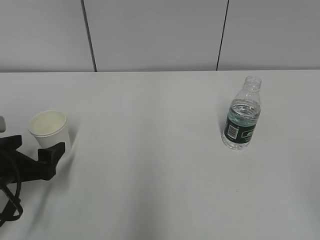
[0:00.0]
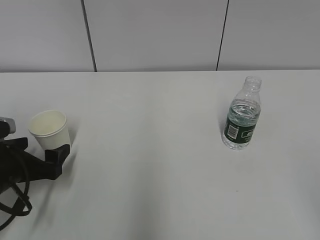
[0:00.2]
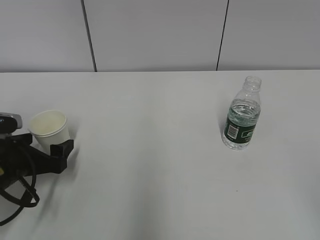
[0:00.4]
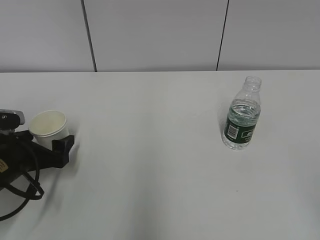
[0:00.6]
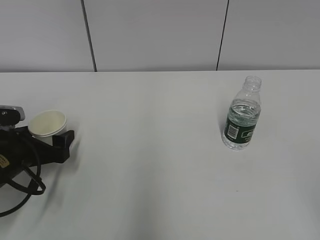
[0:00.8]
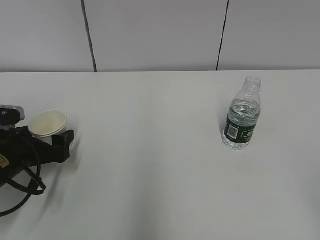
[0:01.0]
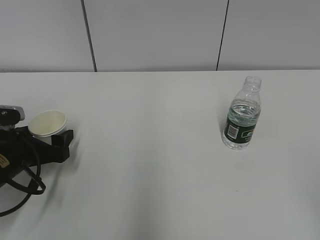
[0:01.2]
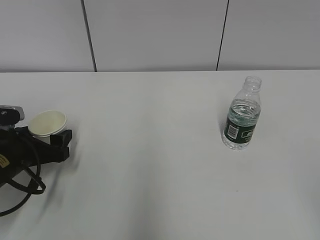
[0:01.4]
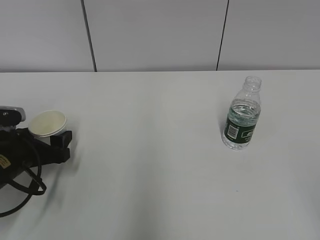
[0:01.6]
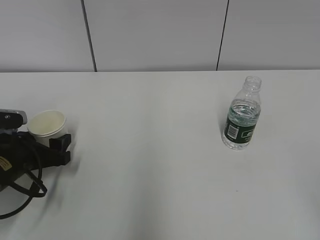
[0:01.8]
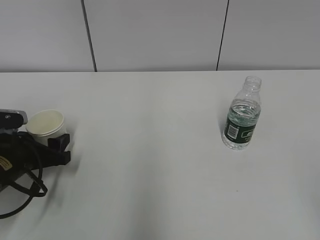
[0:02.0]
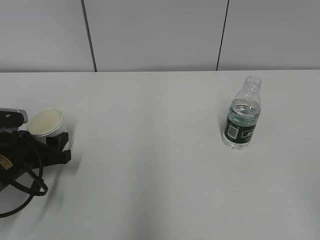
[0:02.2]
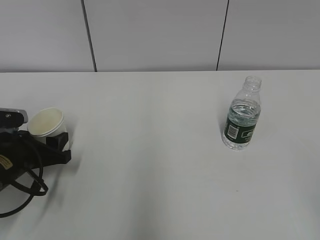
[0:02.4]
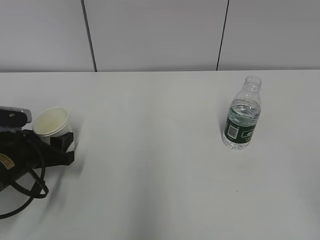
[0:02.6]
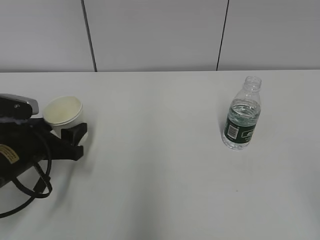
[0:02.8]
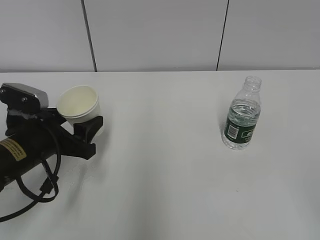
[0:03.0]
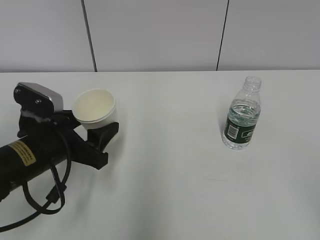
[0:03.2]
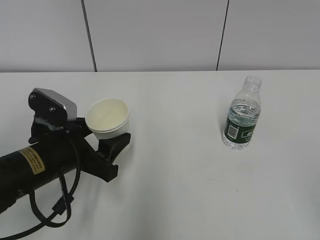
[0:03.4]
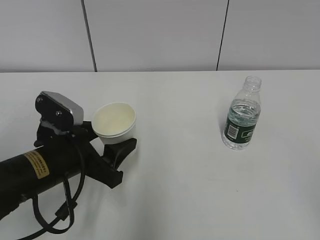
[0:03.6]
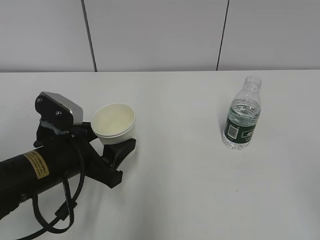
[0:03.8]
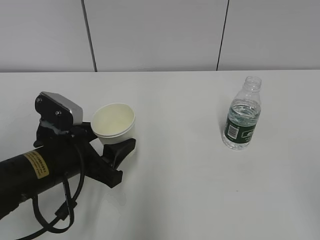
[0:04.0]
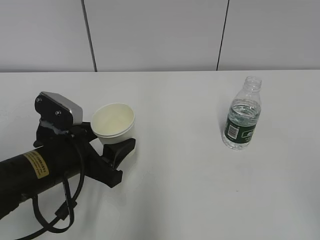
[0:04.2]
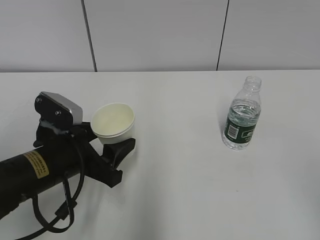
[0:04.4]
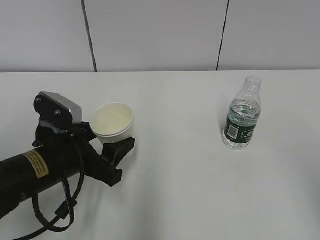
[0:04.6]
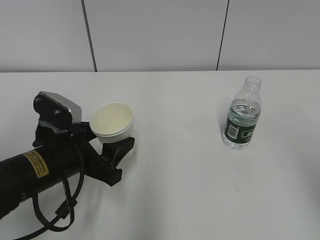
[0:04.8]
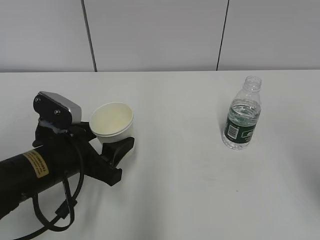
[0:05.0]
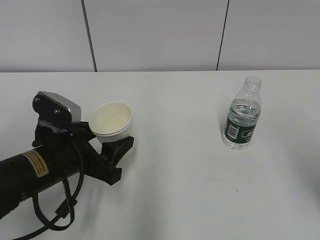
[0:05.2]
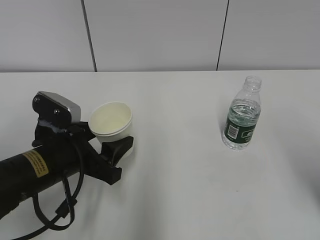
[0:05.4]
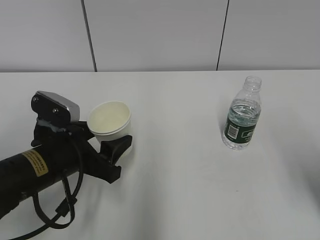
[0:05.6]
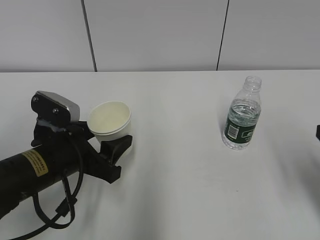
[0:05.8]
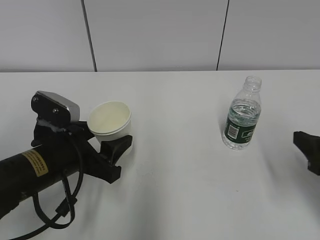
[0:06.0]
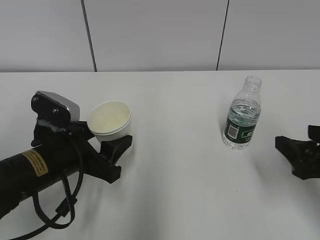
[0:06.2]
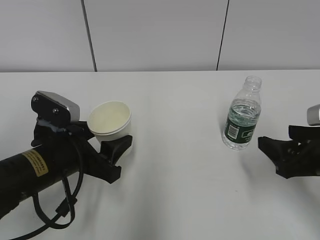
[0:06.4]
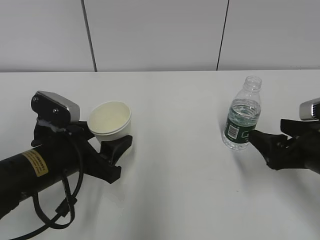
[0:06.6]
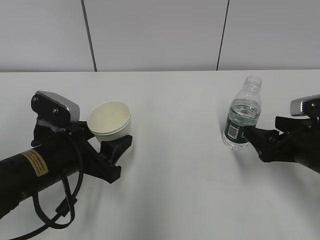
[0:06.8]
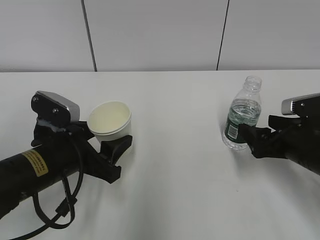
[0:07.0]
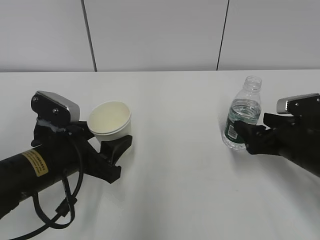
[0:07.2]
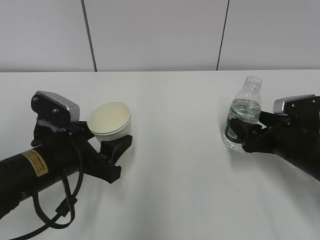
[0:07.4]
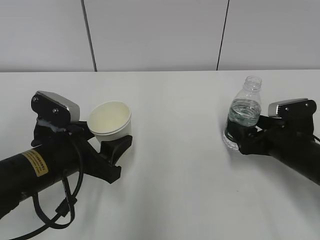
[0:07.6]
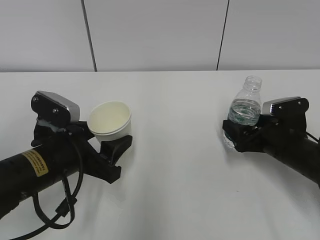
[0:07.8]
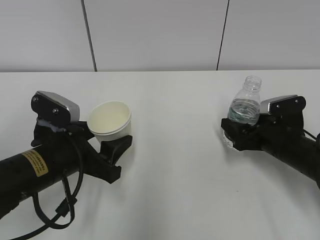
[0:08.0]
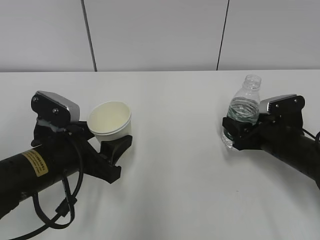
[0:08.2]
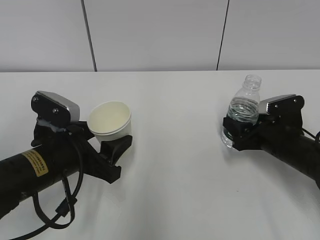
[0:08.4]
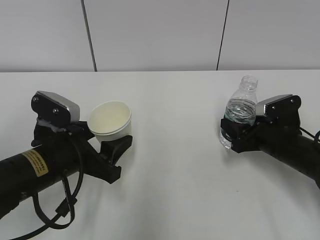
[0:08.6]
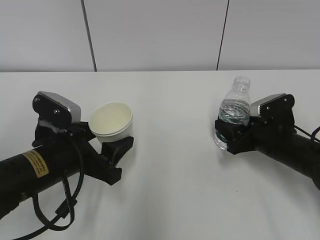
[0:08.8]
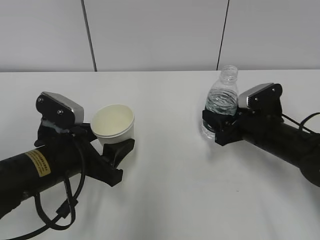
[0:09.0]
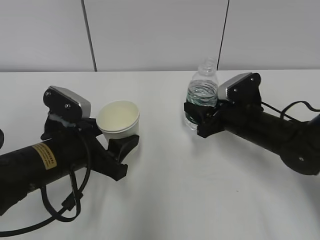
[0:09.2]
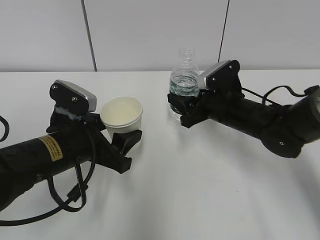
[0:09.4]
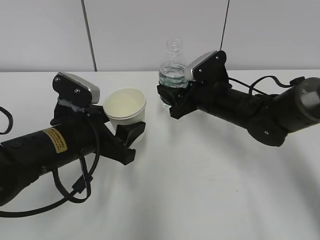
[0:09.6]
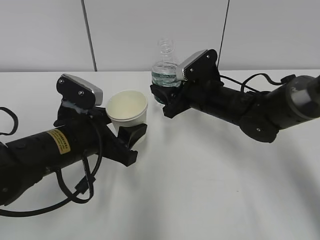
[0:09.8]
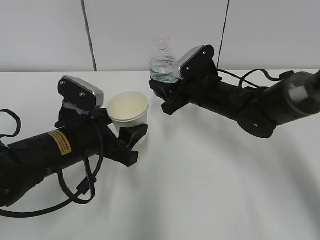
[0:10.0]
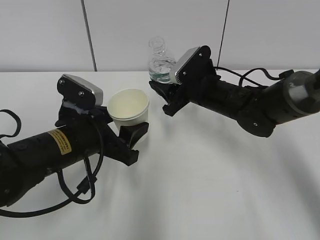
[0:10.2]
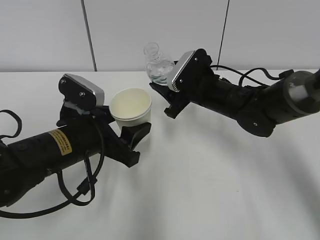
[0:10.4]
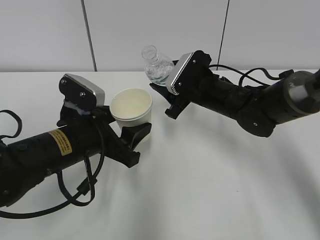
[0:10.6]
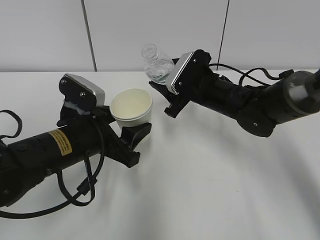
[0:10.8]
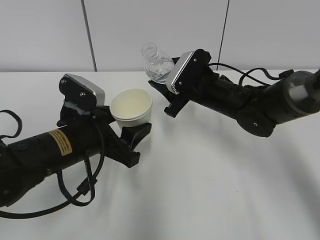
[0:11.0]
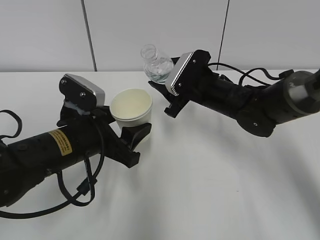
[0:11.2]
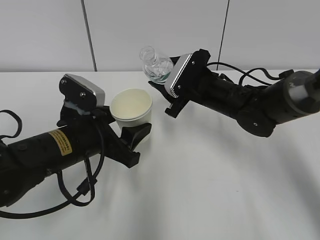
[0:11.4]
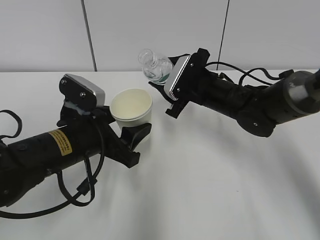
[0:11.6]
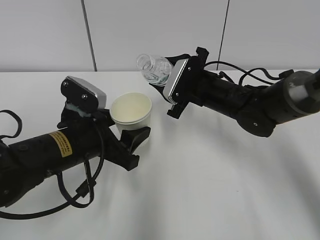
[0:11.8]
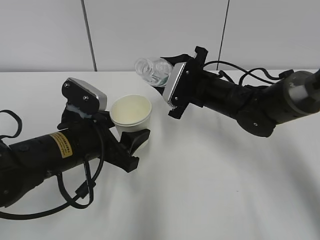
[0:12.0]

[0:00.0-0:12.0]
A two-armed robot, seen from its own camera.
Step, 0:01.2 to 0:06.4: Grab the water bottle with the right hand.
0:00.0 to 0:01.6: The left gripper moves approximately 5 cm, and closes.
0:01.6 to 0:03.0: The left gripper changes place by approximately 5 cm, and closes.
0:03.0 to 0:04.4: The left gripper moves approximately 5 cm.
0:04.4 to 0:06.0: The right gripper heads forward and downward, covering some 20 cm.
0:06.0 to 0:07.6: The right gripper is displaced forward and downward by about 15 cm, and opens its fingers.
0:07.6 to 0:09.0: The right gripper shifts by approximately 5 cm, and closes its fingers.
0:09.0 to 0:10.4: The right gripper is displaced to the left, forward and upward by about 15 cm.

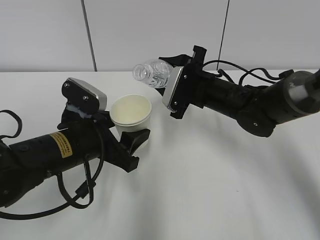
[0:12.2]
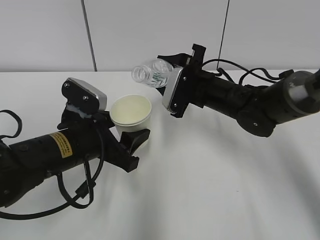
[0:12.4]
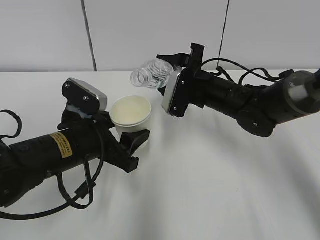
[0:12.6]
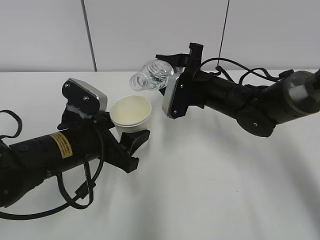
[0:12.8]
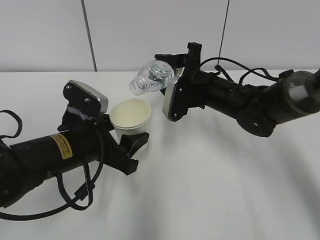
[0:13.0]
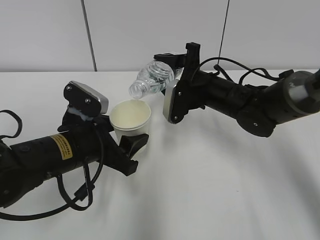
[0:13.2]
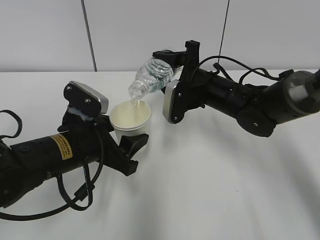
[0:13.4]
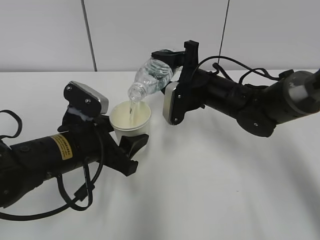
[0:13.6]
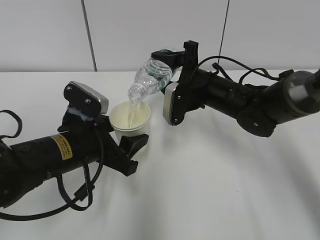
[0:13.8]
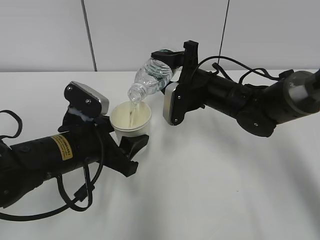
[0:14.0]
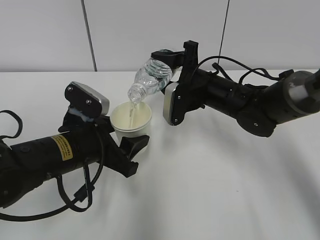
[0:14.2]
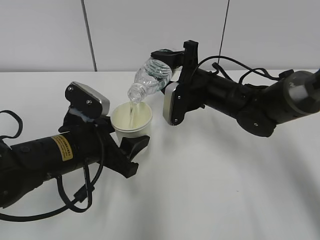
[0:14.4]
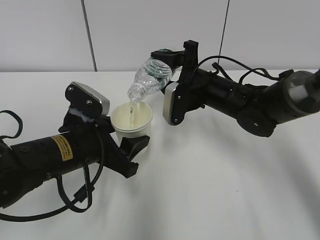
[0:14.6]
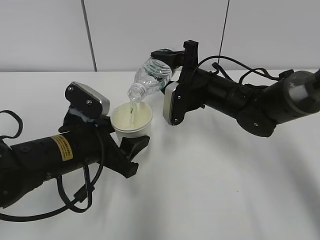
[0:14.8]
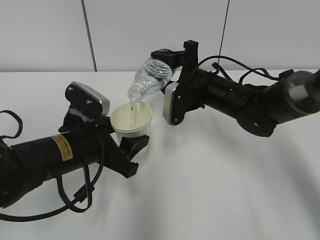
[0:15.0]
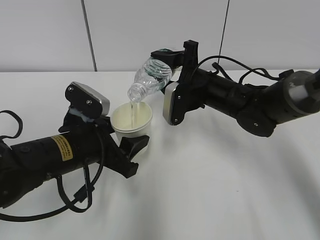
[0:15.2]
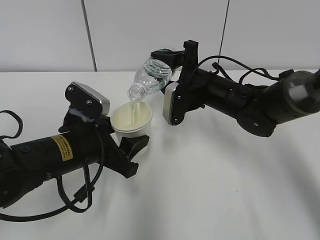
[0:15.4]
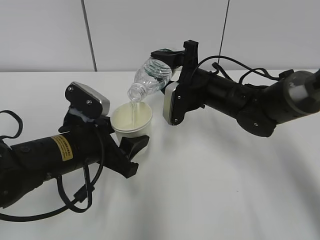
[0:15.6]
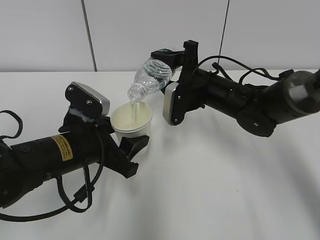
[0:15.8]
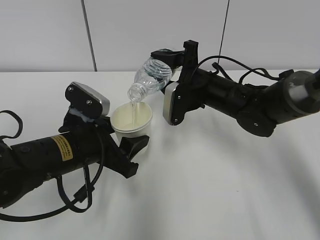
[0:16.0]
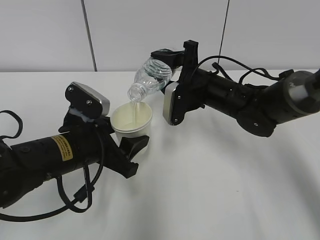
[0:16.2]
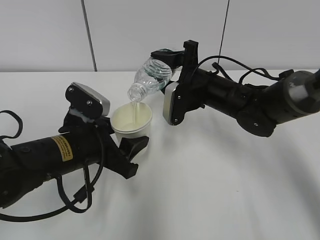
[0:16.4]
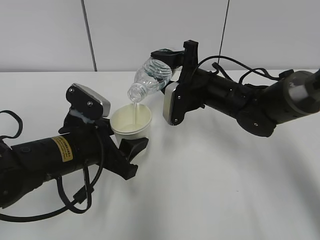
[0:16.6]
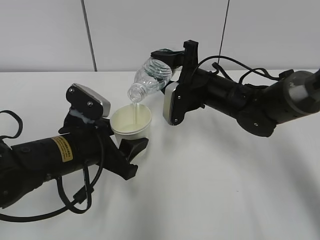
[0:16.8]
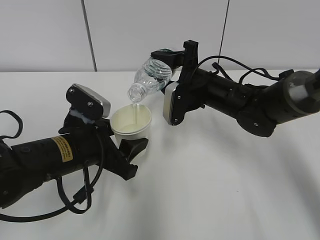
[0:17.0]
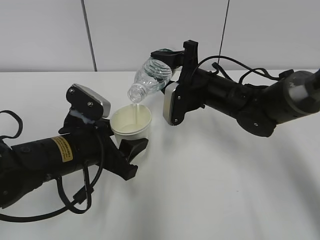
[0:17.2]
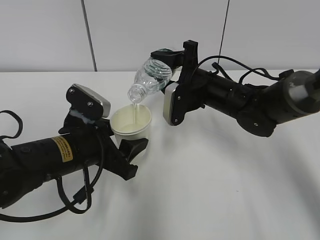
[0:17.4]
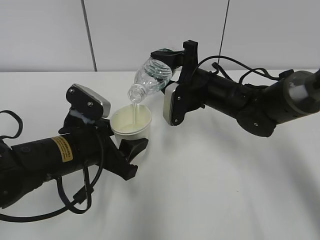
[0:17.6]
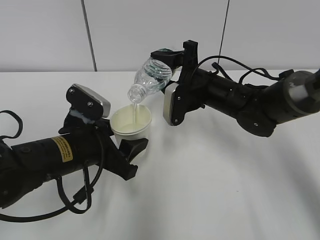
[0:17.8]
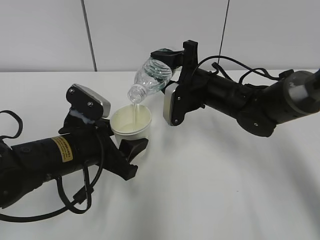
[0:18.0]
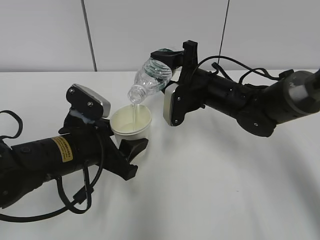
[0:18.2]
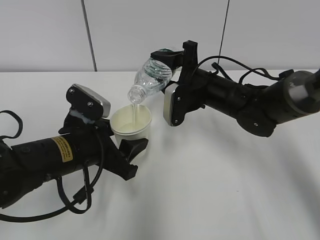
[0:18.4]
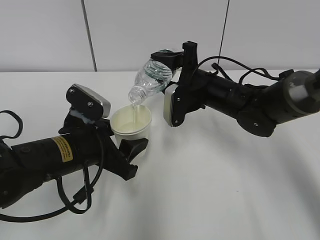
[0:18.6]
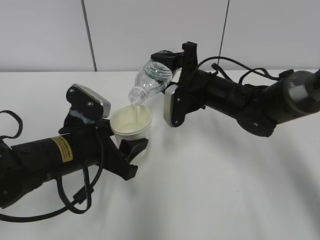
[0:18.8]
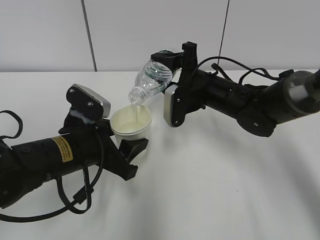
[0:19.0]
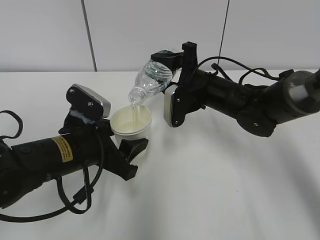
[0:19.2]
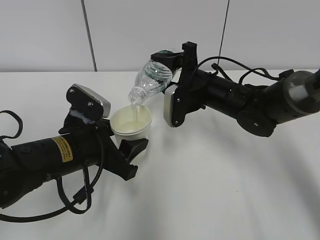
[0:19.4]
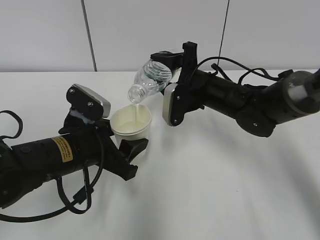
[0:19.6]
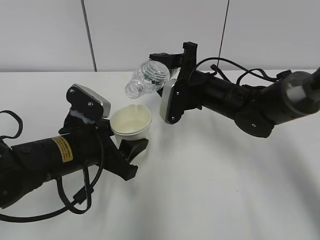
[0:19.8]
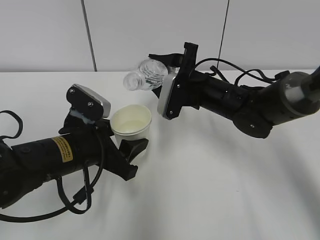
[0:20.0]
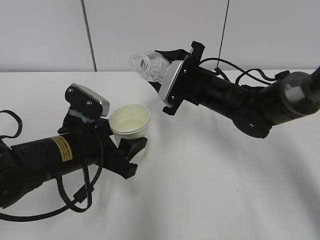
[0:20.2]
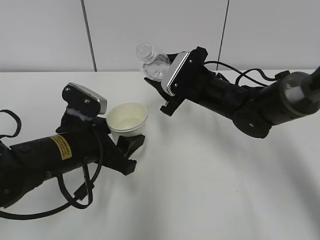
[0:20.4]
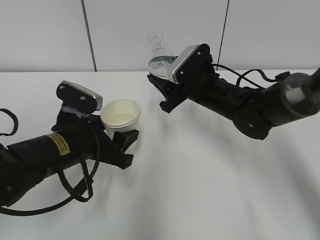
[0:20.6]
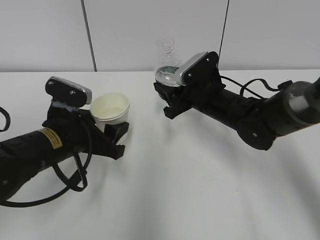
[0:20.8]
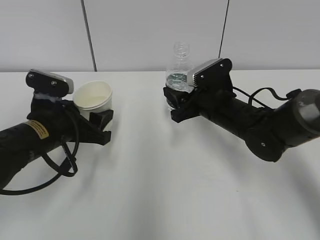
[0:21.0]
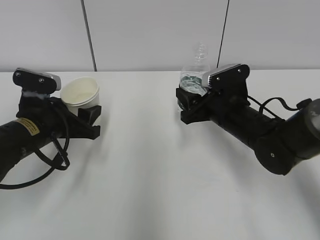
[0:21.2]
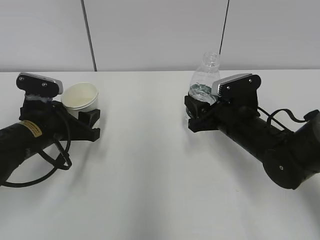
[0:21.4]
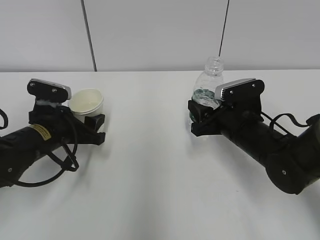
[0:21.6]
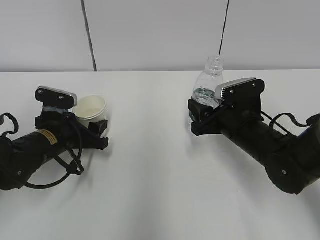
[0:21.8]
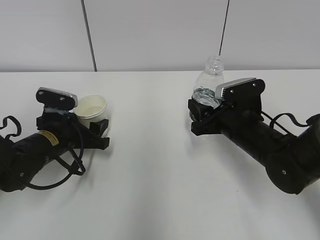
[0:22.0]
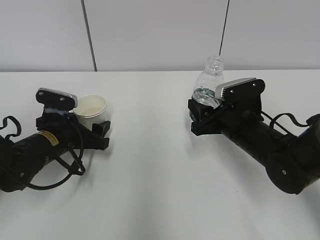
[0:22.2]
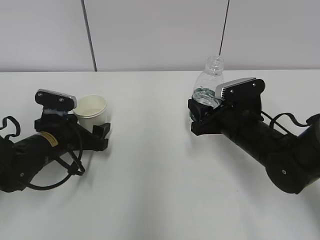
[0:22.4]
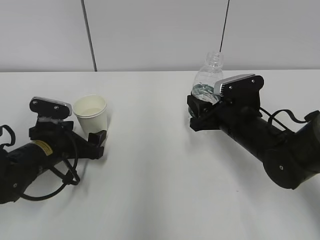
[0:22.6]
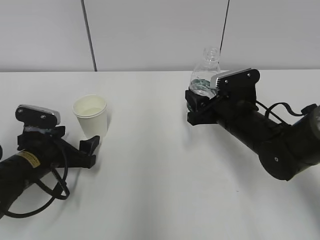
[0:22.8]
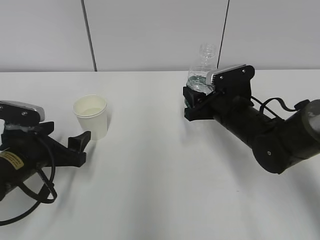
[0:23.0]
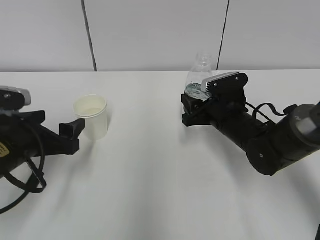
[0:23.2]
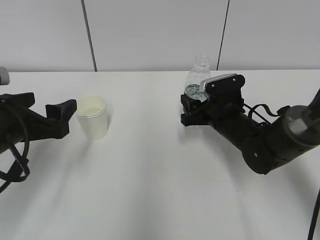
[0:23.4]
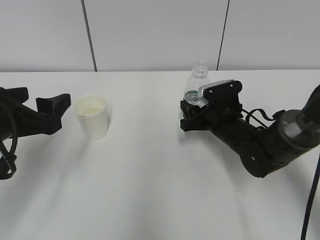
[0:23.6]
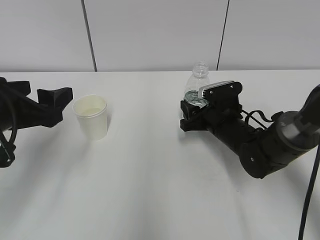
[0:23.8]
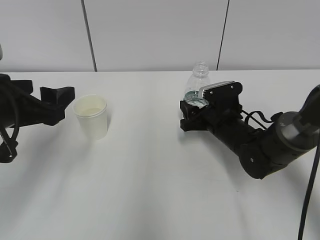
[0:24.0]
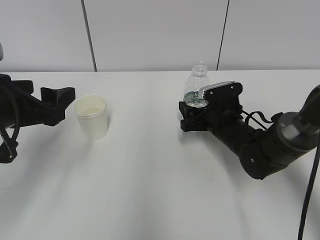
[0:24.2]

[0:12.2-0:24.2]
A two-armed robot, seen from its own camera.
Step, 0:12.2 to 0:15.8: Fill water with the left hand.
Step, 0:12.2 to 0:15.8: Pour water with the right hand.
0:13.8 to 0:18.2: Both grippers stay about where they are.
0:18.2 to 0:19.8: There are only small adjustments of the grippers.
0:19.8 to 0:21.2: The right gripper ends up some 5 cm from where it was. Meanwhile the left gripper goes some 5 cm to the left.
0:21.2 to 0:22.6: The left gripper is displaced downward by some 5 cm, and opens its fingers.
0:22.6 to 0:24.2: The right gripper changes place by roughly 5 cm, and opens its fingers, while the left gripper heads upward and backward, covering approximately 15 cm.
